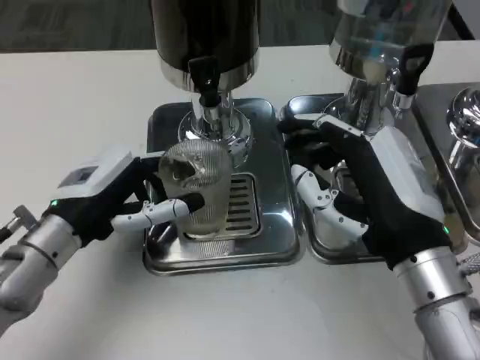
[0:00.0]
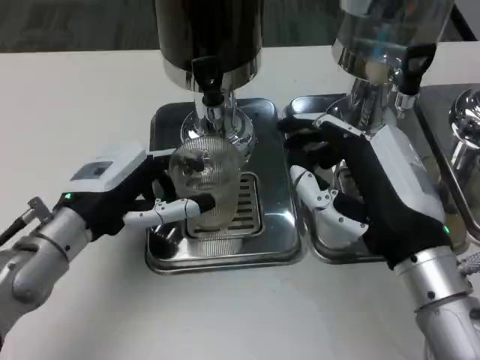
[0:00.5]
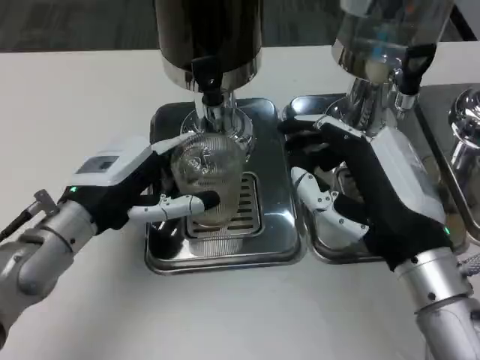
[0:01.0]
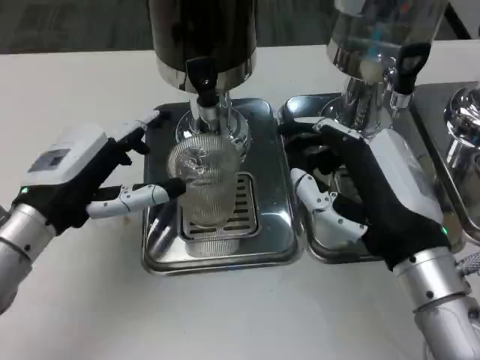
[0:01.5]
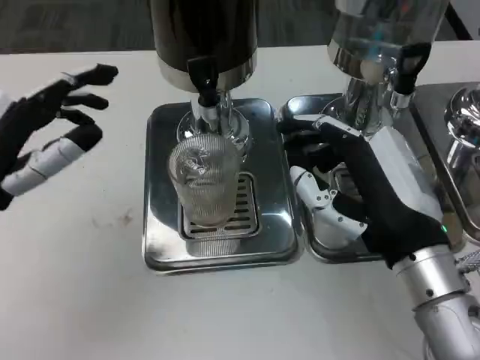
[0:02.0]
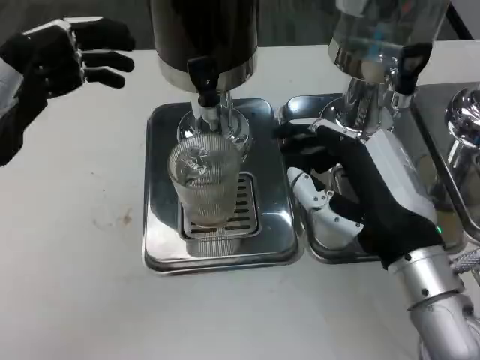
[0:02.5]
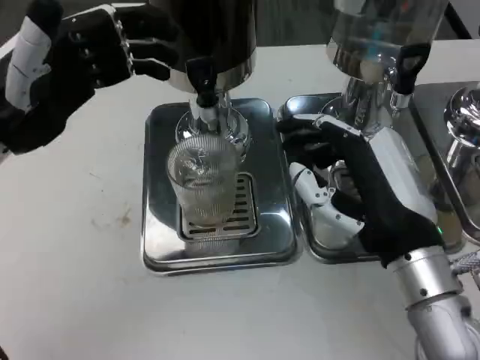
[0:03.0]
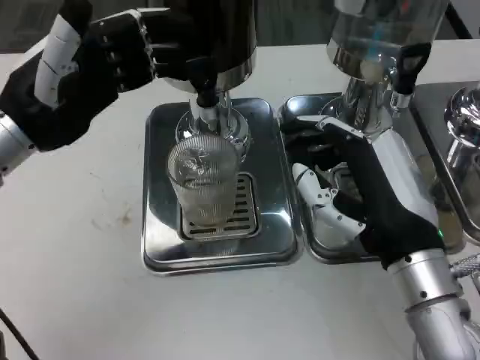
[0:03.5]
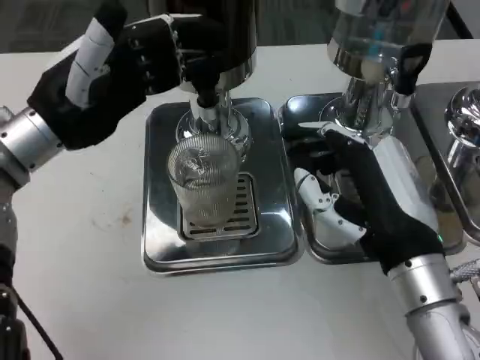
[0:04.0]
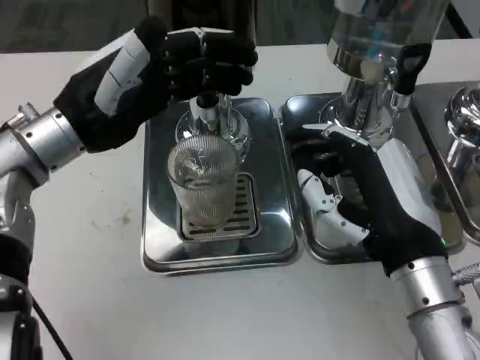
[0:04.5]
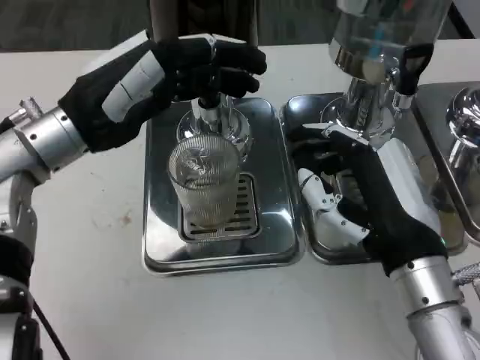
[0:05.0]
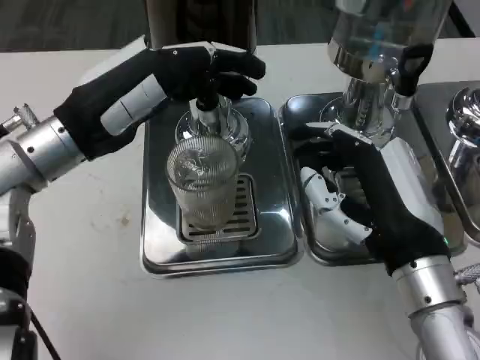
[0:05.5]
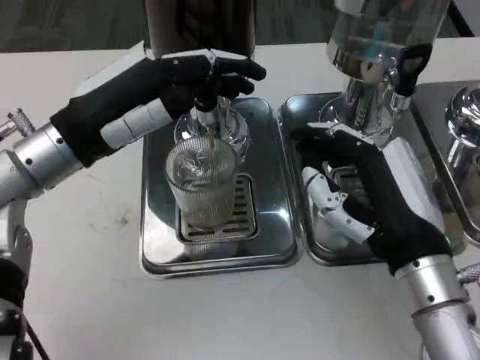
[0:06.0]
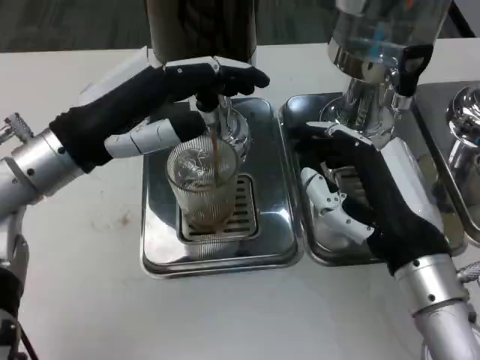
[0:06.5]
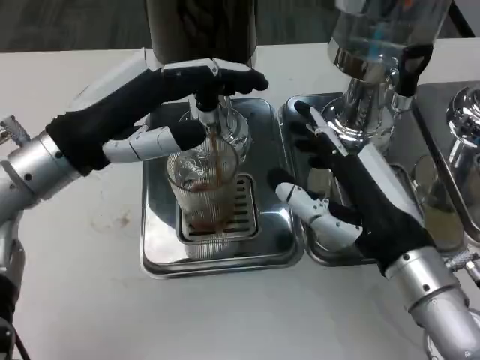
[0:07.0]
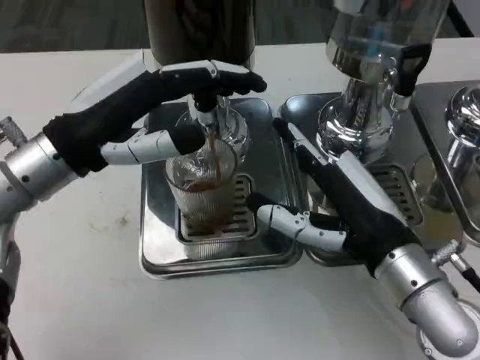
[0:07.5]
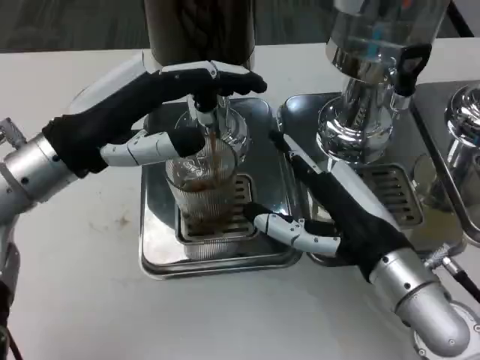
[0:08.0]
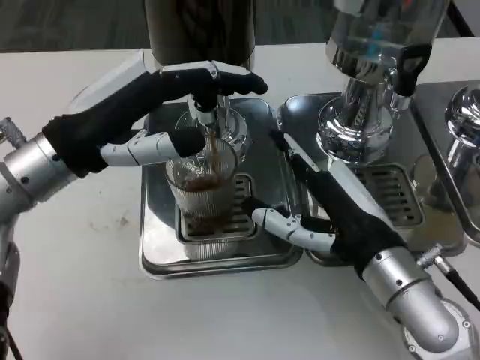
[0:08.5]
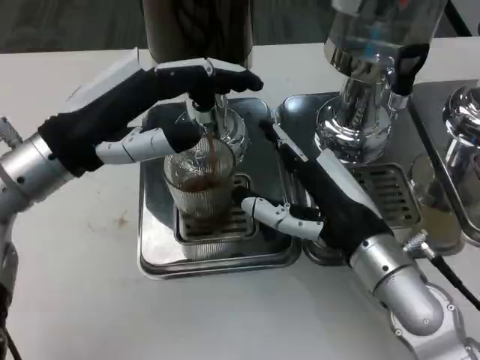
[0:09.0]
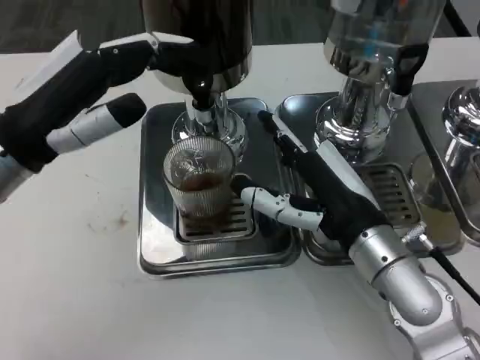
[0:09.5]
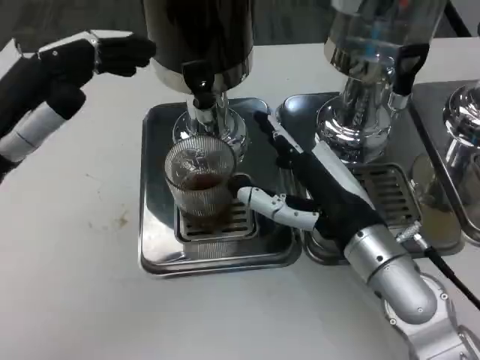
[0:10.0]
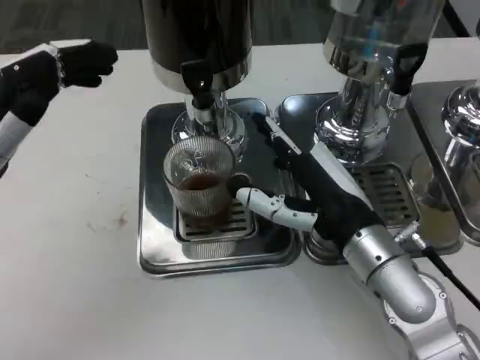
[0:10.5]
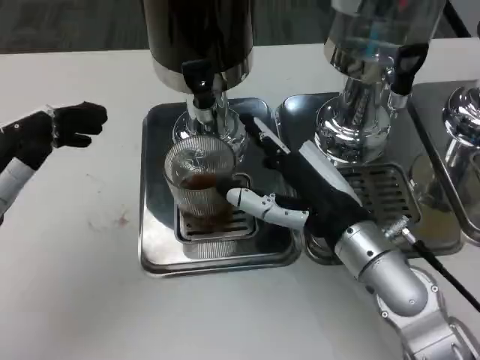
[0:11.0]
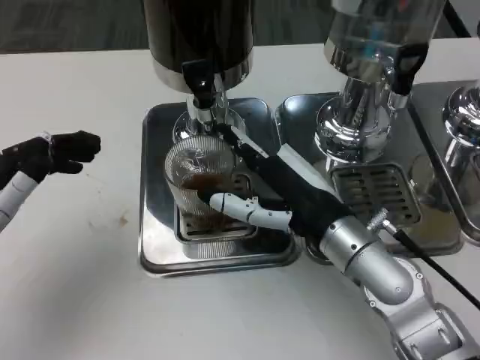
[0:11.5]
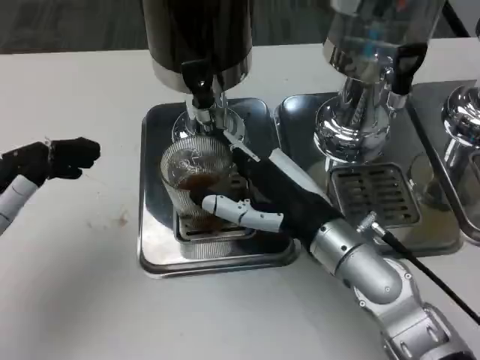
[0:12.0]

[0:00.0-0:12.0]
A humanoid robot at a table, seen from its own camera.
Task of the whole recording: Grasp the cup under the faucet to collect the drink, then remove the cup.
0:00.0 to 0:02.0: The left hand goes roughly 10 cm upward and to the left.
0:02.0 to 0:04.0: The left hand heads forward, covering approximately 10 cm.
0:08.0 to 0:10.0: The left hand moves to the left, approximately 5 cm.
0:10.0 to 0:12.0: The left hand is displaced downward and backward by roughly 10 cm.

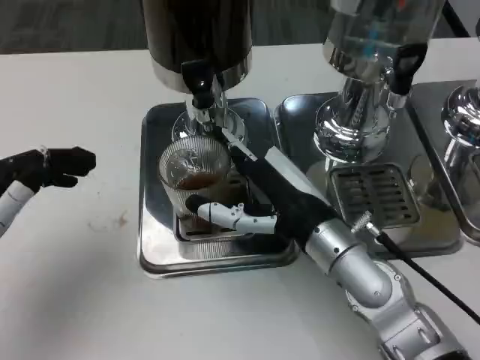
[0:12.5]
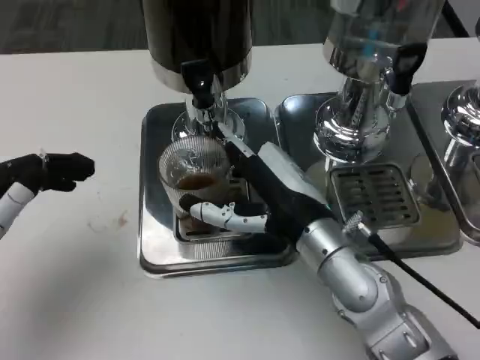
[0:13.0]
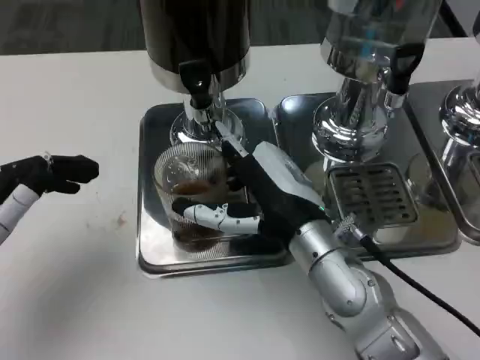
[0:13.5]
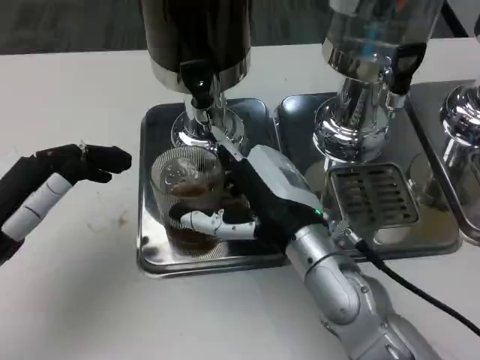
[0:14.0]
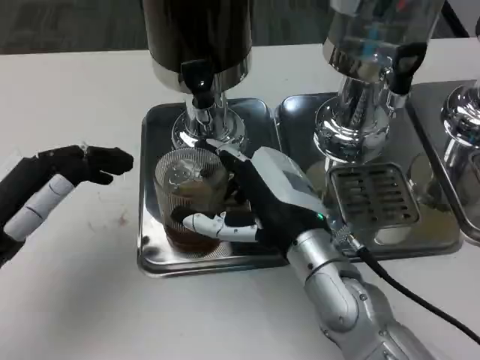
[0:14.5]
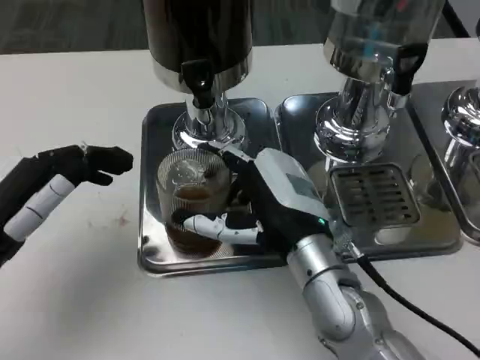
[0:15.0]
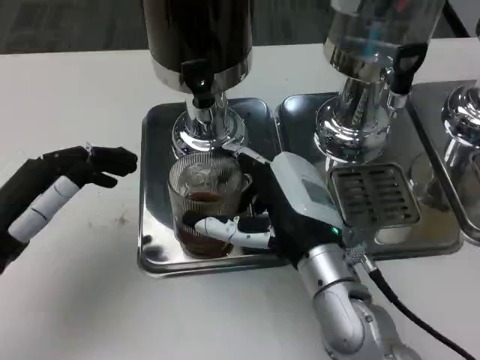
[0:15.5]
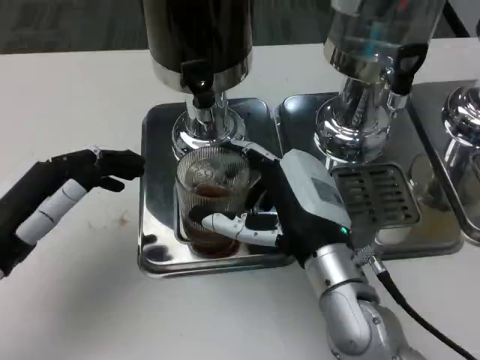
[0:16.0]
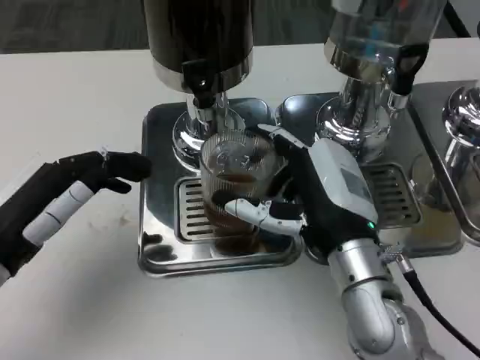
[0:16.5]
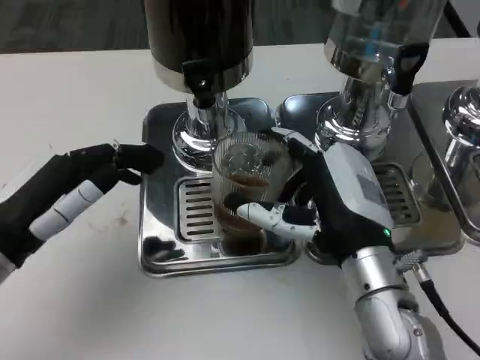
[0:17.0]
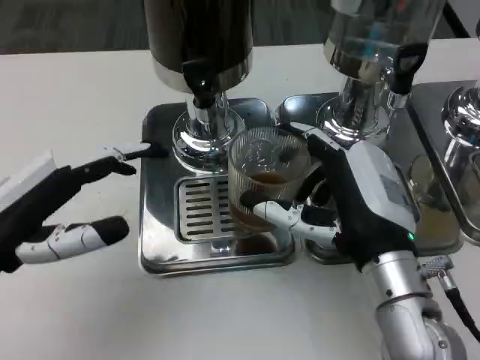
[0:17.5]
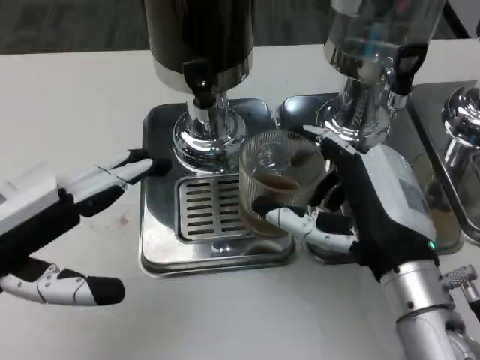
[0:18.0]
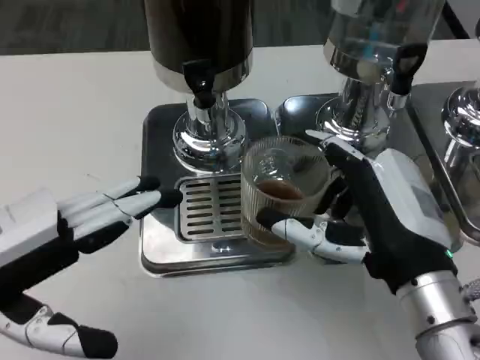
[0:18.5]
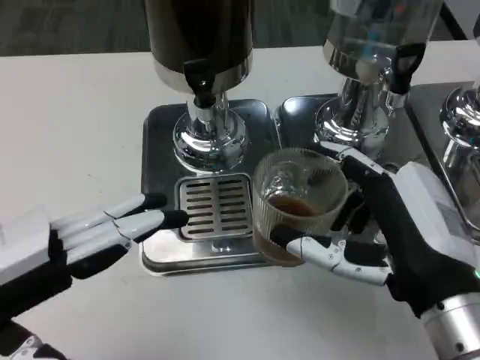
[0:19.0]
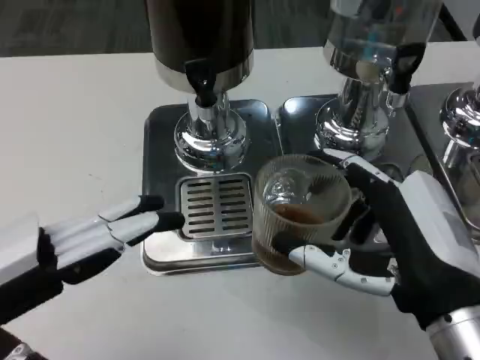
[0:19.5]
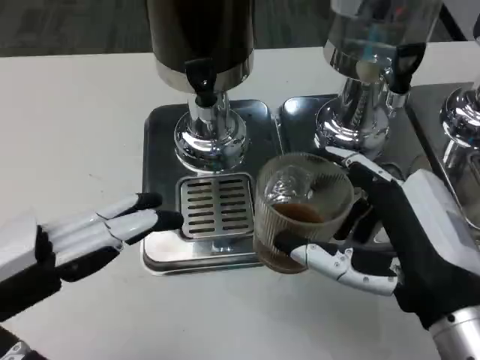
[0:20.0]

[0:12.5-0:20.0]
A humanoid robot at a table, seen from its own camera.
Task of the whole recording: Grasp the cup under the faucet to collect the drink, then remove the cup.
0:16.5 to 0:18.0: The left hand shifts roughly 5 cm upward. The right hand ends up about 5 cm from where it was.
0:18.0 to 0:20.0: The right hand is displaced backward by about 5 cm.

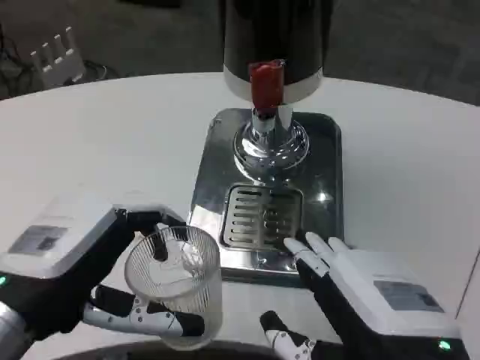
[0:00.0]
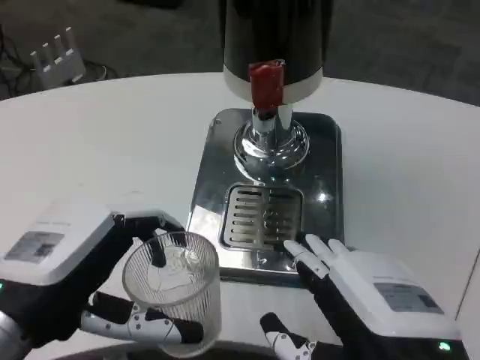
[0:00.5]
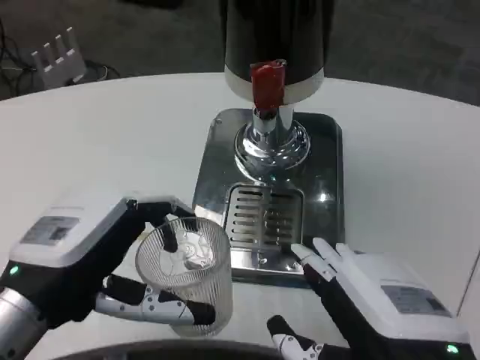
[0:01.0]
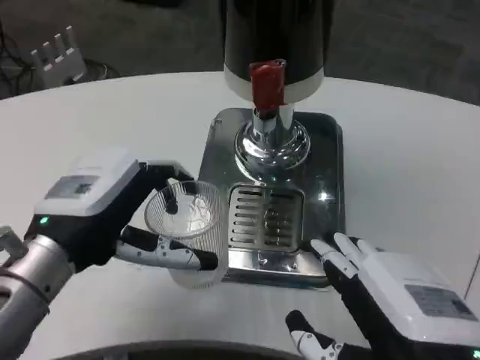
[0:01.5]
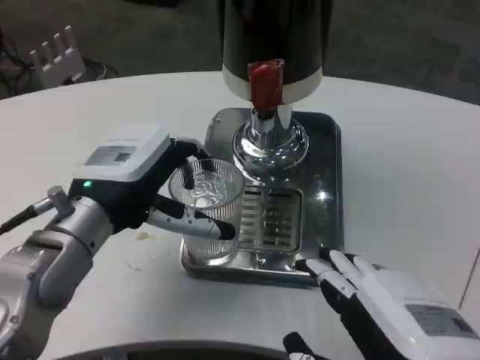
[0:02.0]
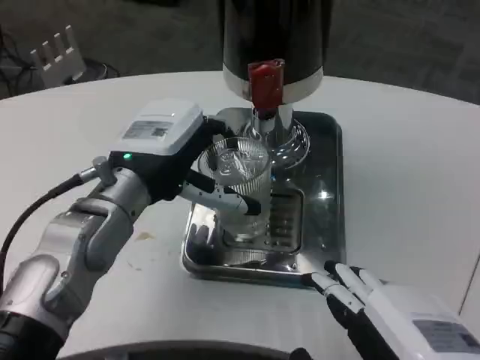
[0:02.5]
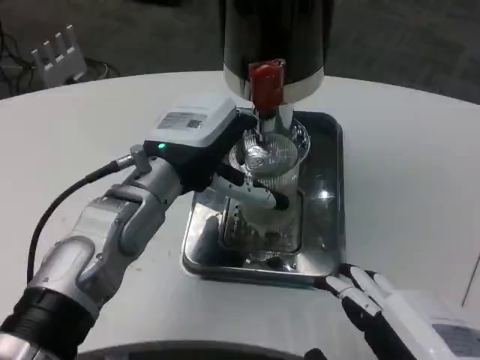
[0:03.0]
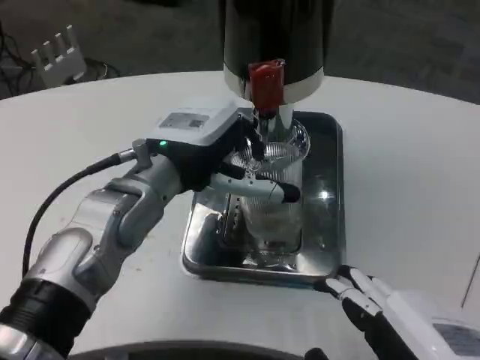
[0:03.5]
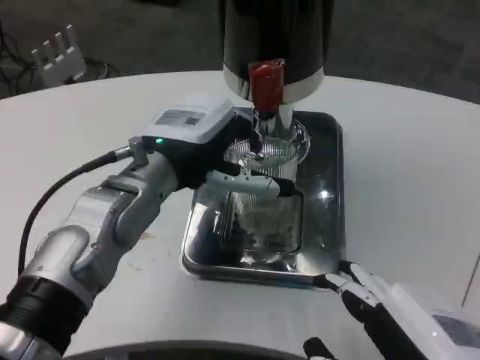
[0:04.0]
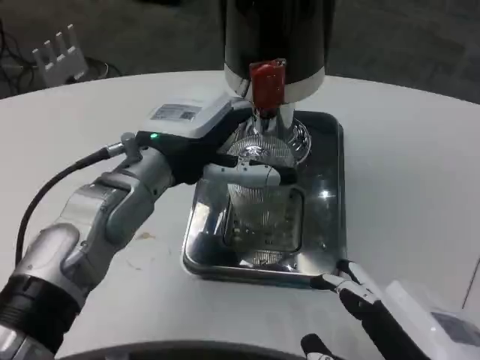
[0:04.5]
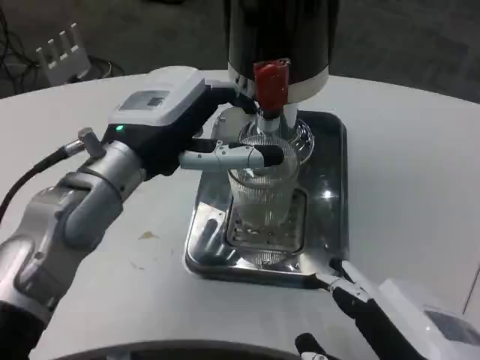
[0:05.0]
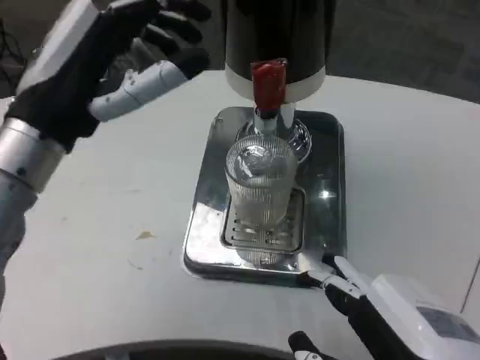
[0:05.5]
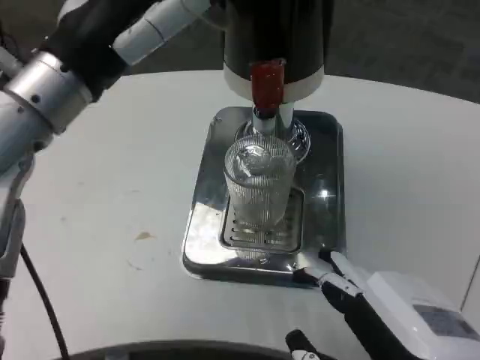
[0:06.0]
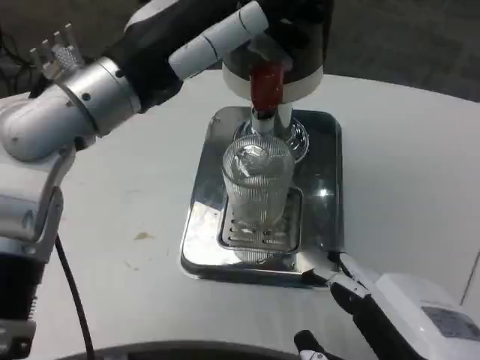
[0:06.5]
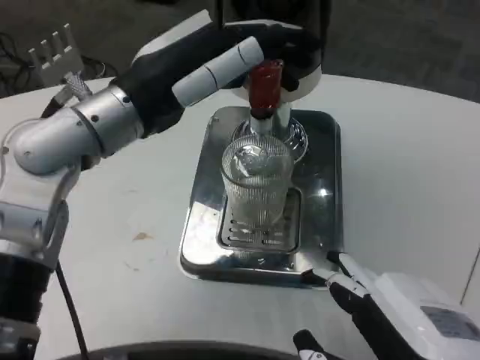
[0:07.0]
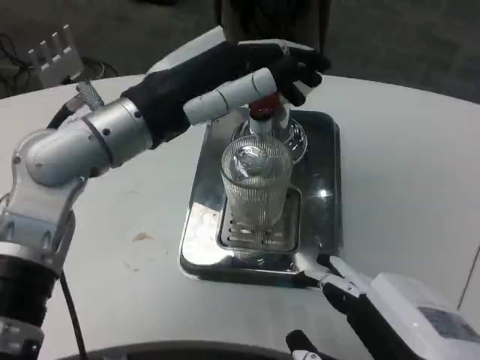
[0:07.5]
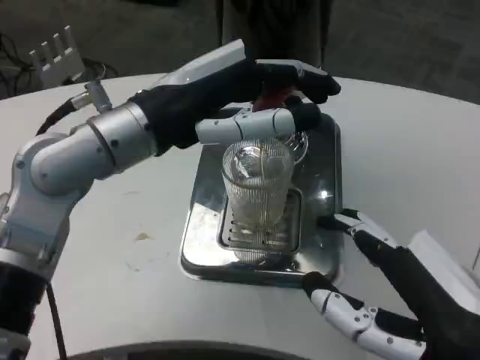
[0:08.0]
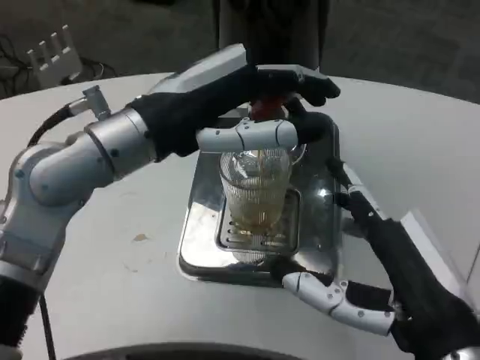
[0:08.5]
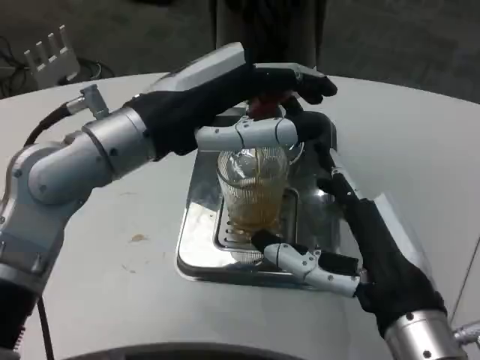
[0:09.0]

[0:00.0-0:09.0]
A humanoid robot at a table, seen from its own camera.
Task of the whole recording: Grasp the cup under the faucet to collect the drink, then remove the cup.
0:00.0 to 0:02.0: The left hand moves forward, roughly 10 cm.
0:02.0 to 0:04.5: The left hand changes place by roughly 5 cm.
0:04.5 to 0:07.0: The left hand travels upward by approximately 5 cm.
0:07.0 to 0:09.0: The right hand heads forward, covering some 10 cm.
